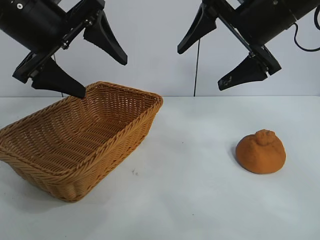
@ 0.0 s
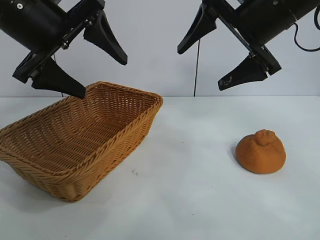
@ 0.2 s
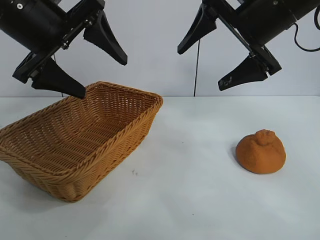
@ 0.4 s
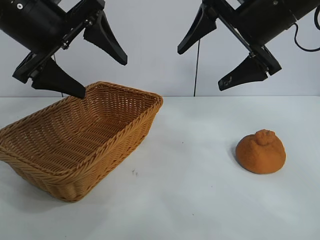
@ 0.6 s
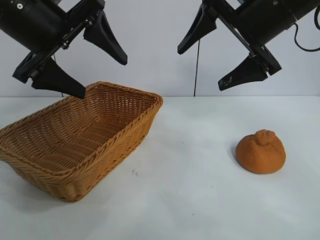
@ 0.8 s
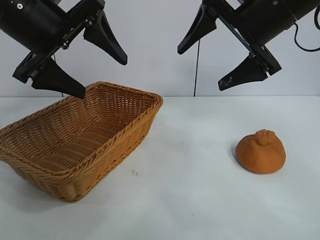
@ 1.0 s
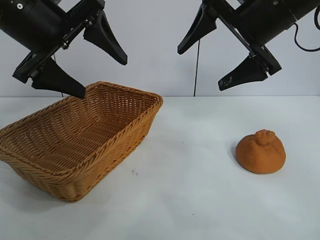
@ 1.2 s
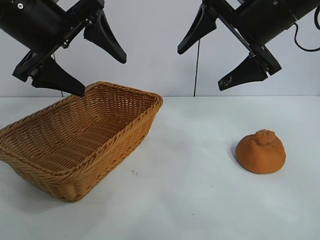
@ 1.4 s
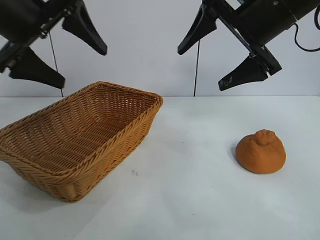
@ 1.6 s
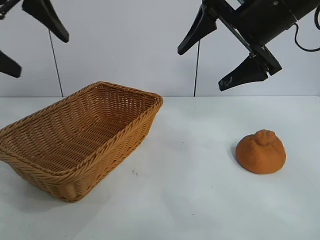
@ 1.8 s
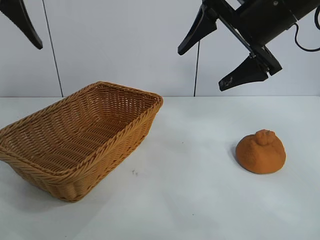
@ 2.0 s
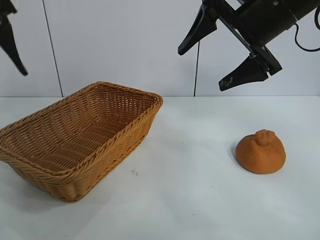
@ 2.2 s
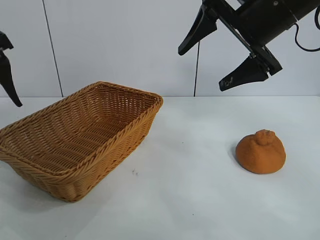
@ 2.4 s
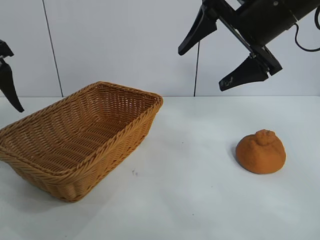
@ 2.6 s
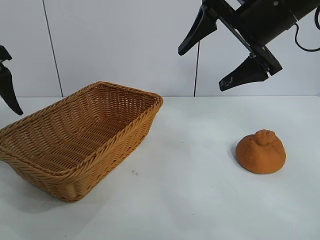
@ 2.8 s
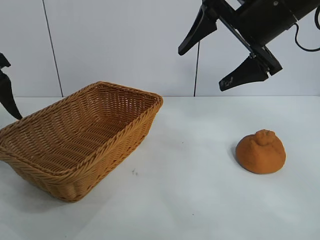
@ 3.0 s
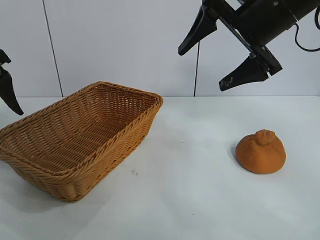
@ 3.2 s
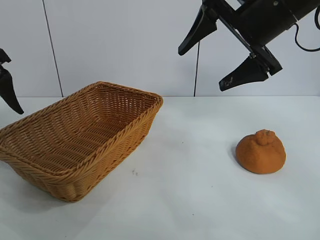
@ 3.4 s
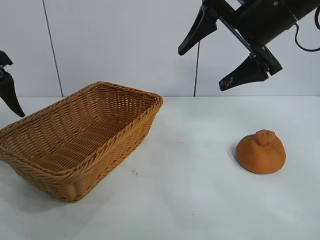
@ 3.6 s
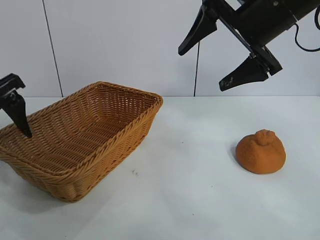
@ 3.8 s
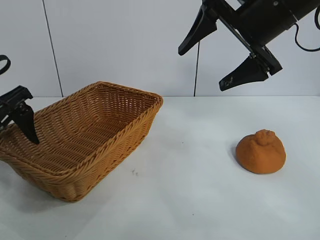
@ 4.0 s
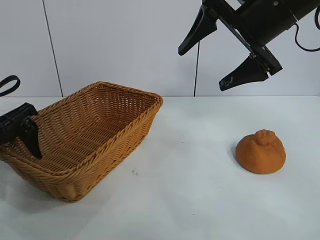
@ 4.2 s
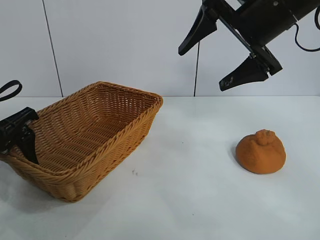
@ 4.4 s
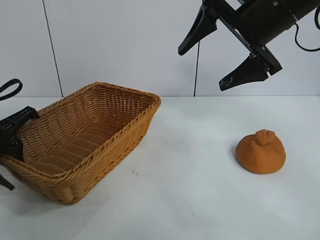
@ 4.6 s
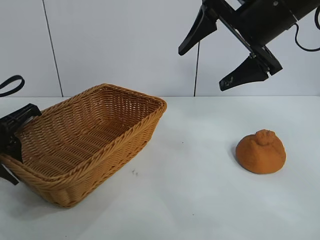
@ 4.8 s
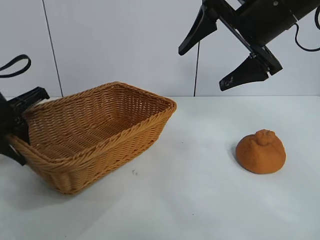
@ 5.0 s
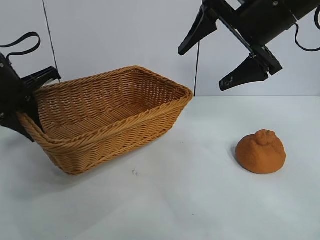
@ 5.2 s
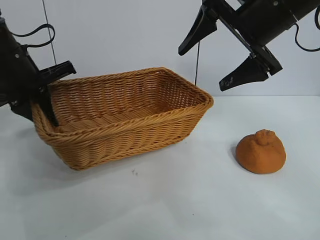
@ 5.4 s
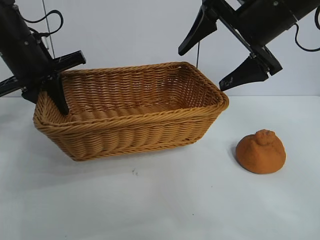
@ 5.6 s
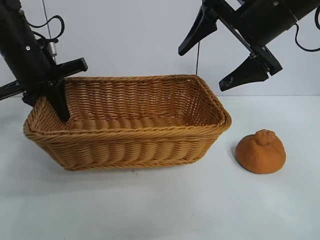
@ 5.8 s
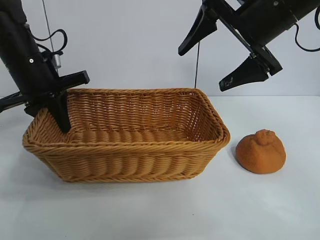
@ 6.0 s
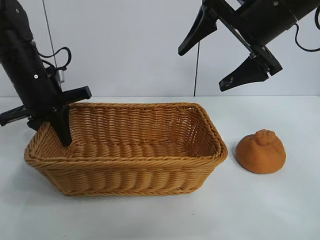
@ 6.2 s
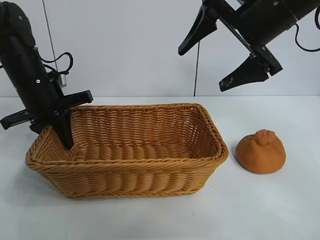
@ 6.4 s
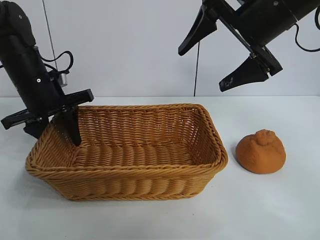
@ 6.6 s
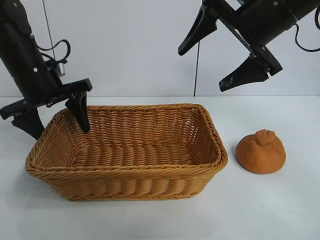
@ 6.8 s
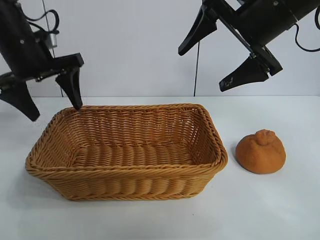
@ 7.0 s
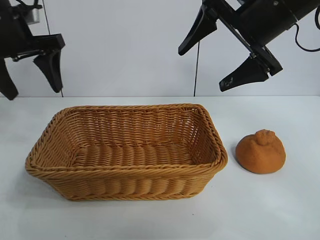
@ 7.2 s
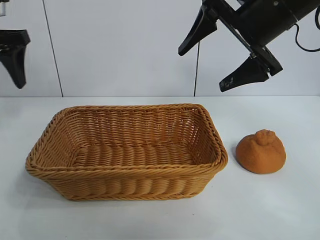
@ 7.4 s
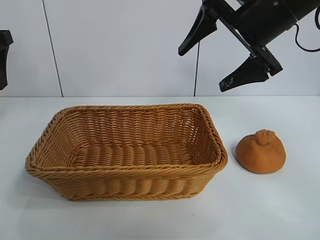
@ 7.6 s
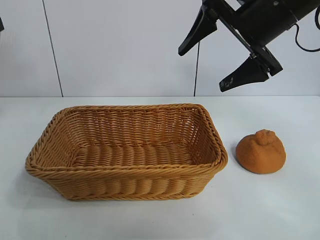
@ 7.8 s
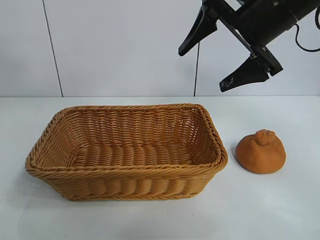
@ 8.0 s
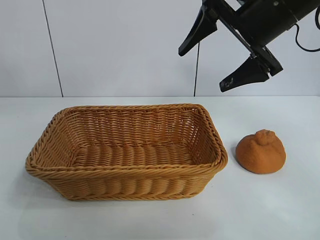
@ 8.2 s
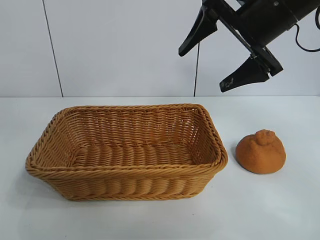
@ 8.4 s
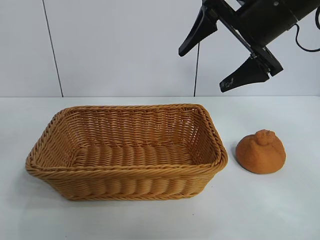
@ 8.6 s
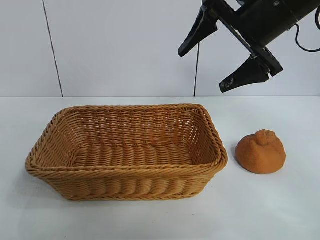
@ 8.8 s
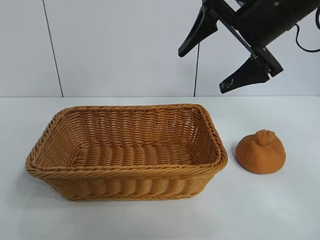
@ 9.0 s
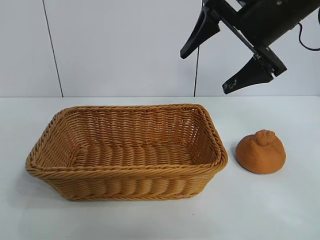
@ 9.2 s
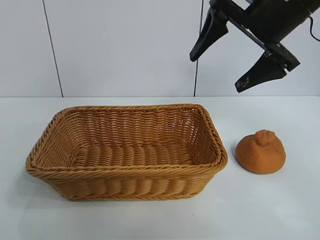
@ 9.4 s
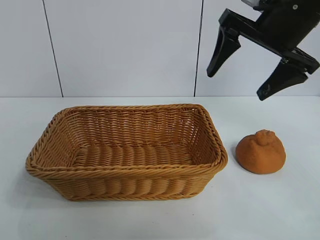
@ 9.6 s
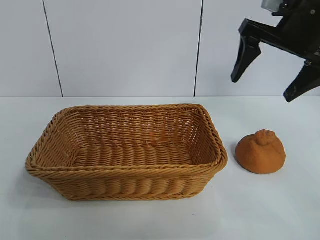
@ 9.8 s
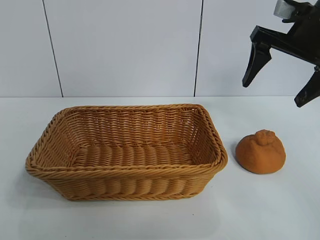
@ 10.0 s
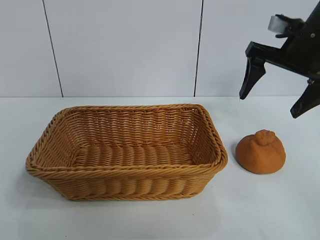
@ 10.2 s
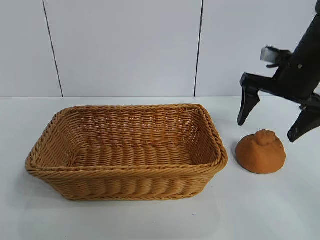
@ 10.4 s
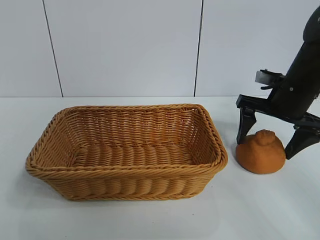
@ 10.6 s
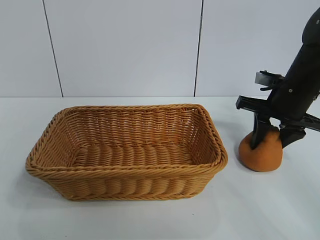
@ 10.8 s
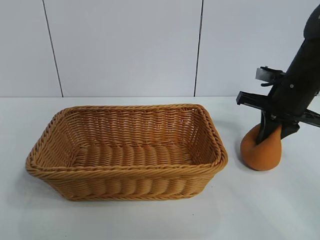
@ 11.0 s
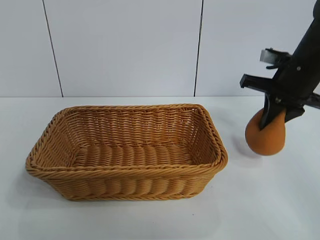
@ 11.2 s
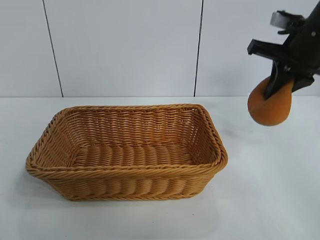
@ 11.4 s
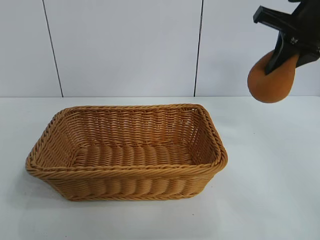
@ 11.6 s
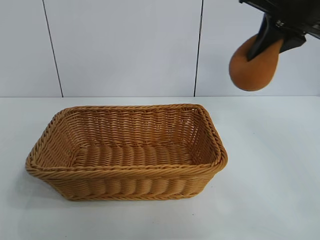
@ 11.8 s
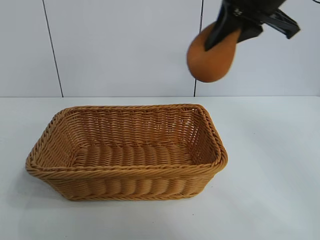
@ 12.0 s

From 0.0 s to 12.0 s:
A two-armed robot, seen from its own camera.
Task of the whole recording: pick up the orange and put it into the basket.
Step, from 1.0 s to 4.6 s: Grasp the basket with left gripper.
Step, from 5.0 s to 6.6 s: Place the basket in the center of view with left gripper.
Step, from 7.0 s to 10.6 s: Grasp the orange with right gripper.

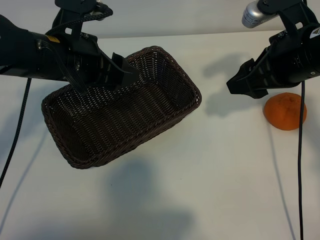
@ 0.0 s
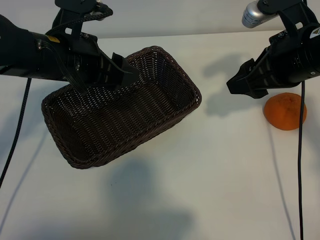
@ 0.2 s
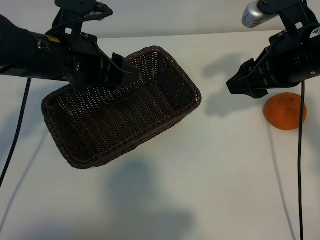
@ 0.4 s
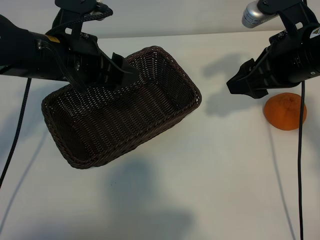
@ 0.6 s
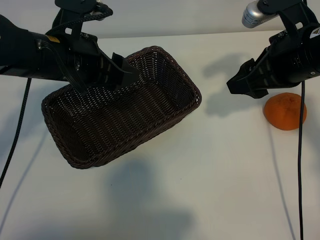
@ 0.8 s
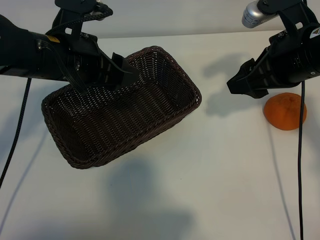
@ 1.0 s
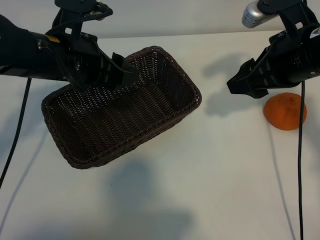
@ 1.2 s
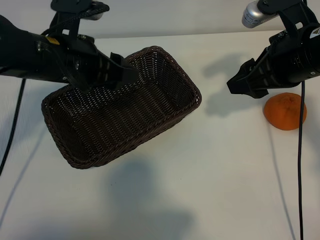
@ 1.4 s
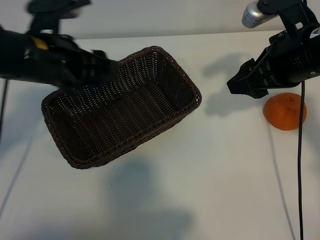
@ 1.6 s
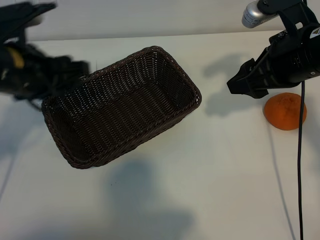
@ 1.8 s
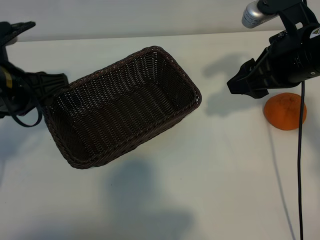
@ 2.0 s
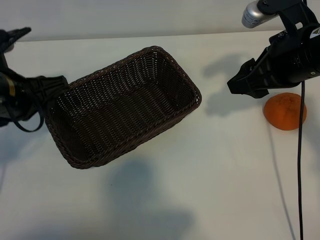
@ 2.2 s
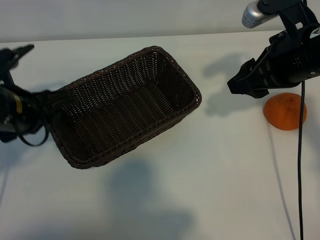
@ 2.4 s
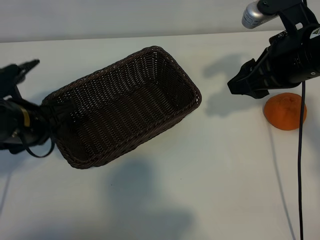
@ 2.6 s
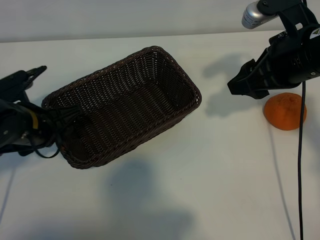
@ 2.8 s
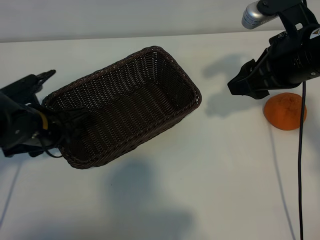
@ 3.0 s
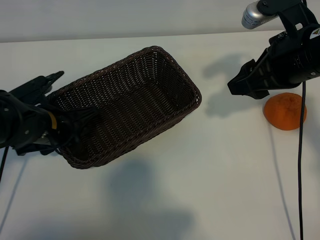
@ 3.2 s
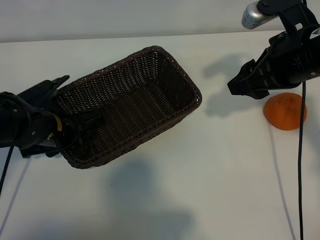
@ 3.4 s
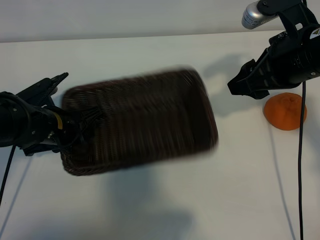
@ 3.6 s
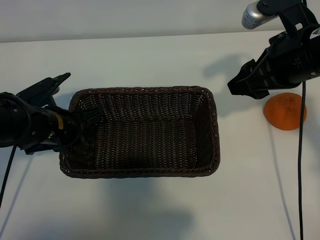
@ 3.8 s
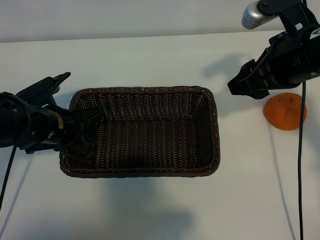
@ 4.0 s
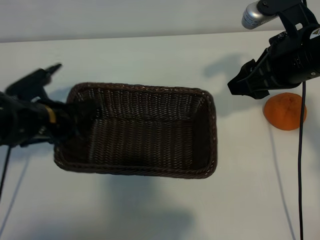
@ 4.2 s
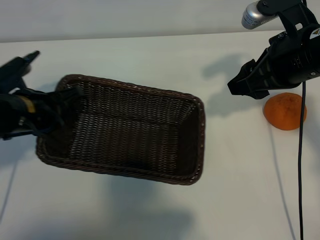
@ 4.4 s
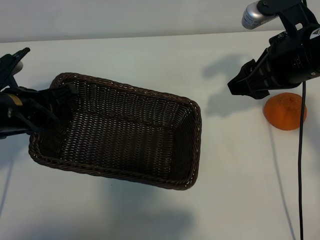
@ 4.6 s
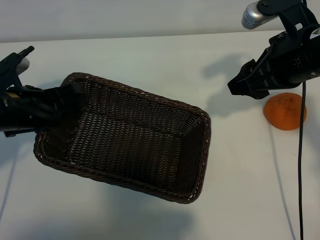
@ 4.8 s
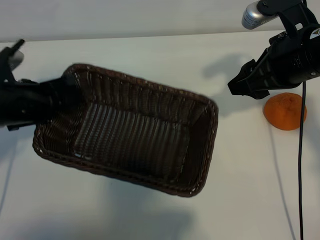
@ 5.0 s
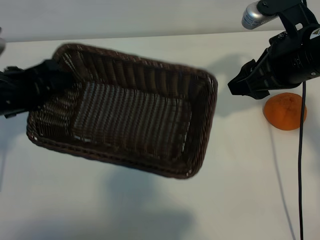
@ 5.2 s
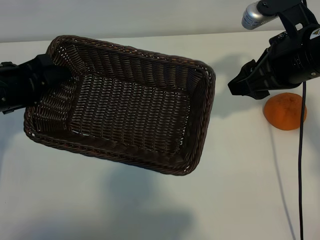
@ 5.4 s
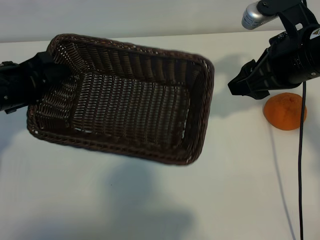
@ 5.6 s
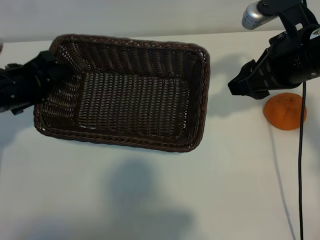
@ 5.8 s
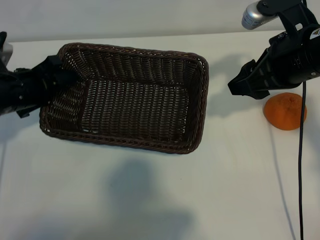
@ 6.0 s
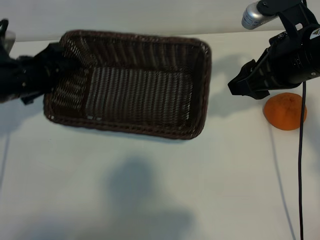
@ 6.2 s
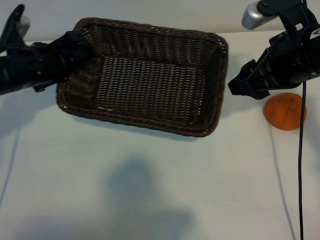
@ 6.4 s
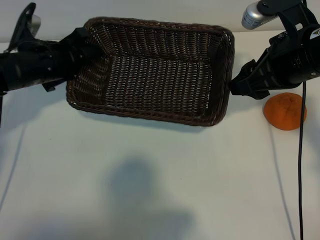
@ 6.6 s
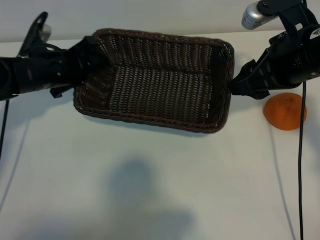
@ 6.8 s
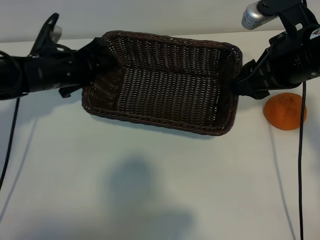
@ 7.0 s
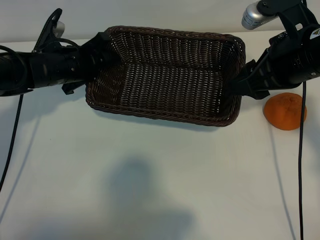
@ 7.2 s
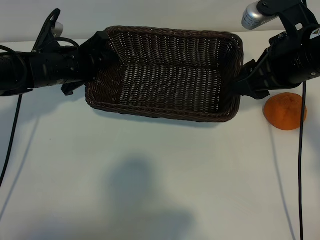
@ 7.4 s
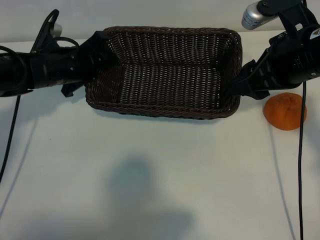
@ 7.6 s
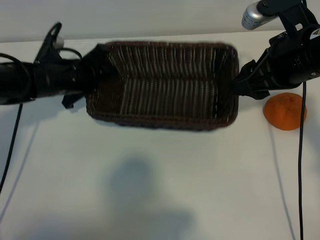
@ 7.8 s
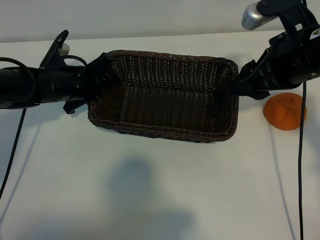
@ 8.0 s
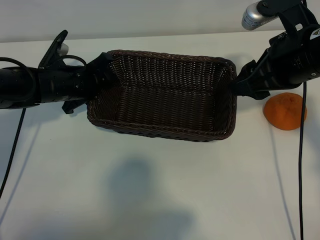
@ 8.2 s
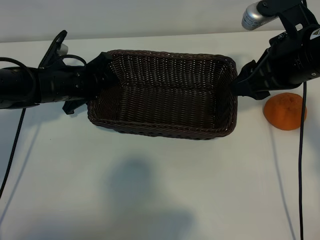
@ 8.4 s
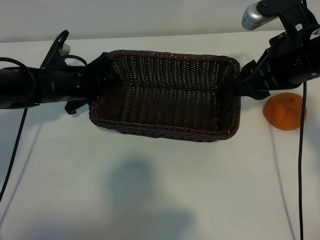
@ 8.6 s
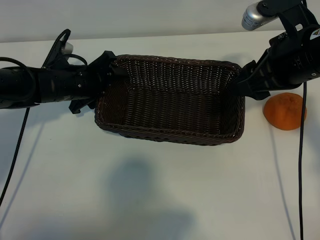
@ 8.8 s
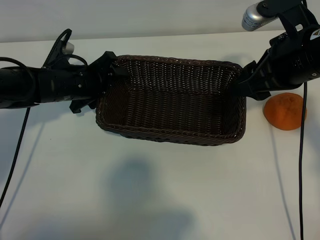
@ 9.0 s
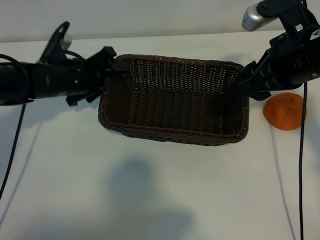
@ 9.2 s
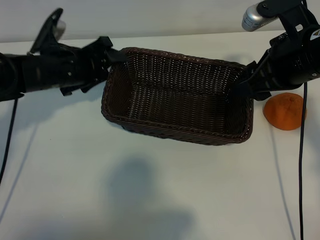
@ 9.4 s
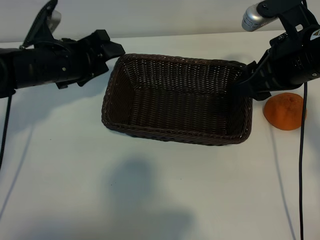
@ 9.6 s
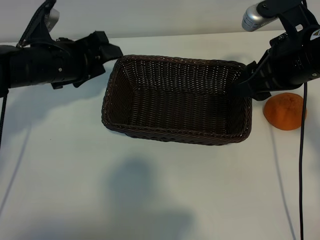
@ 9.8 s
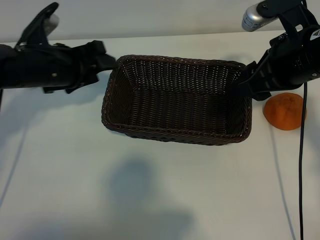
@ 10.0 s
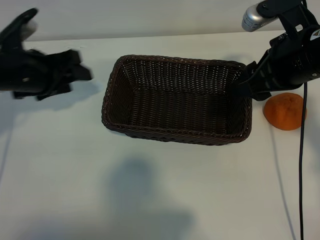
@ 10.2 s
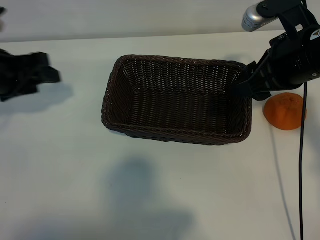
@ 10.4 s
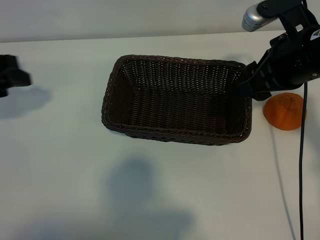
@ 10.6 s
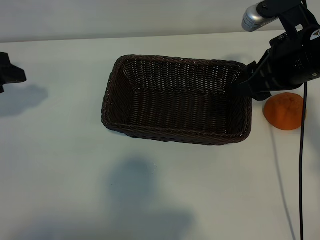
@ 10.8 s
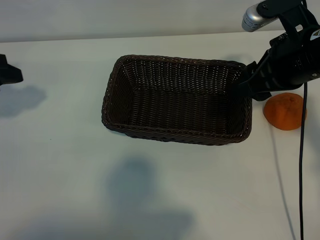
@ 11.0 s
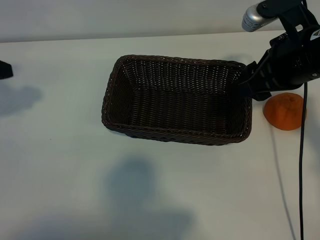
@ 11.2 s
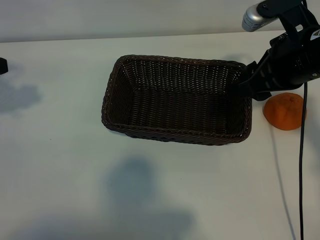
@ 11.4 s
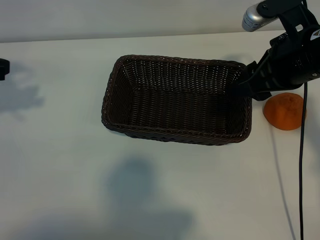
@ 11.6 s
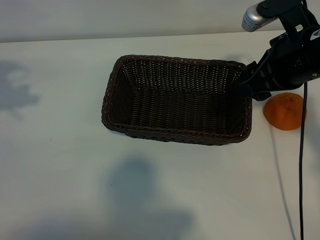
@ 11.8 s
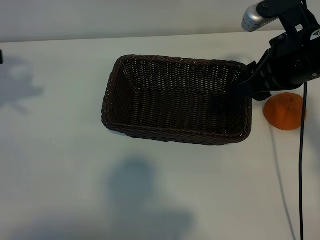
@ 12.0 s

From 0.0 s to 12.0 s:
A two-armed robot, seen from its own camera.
Task of the whole recording: pick up the orange and put it into the basket.
Step, from 1.4 s to 3.6 s: Grasp the basket with left gripper.
Step, from 3.8 s to 9.6 s: Place the basket in the center of view with left gripper.
